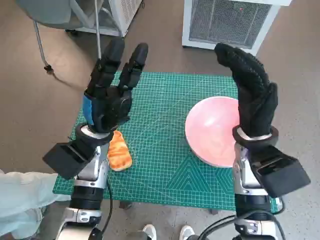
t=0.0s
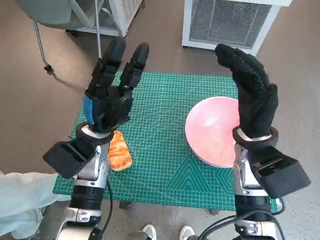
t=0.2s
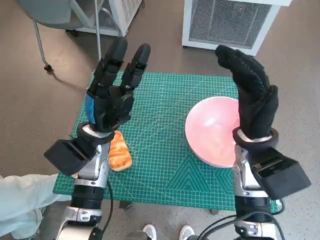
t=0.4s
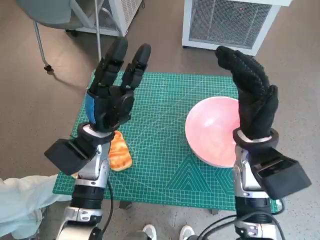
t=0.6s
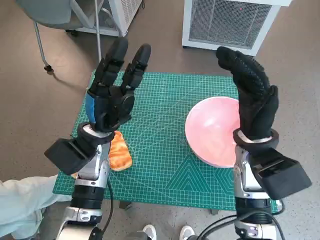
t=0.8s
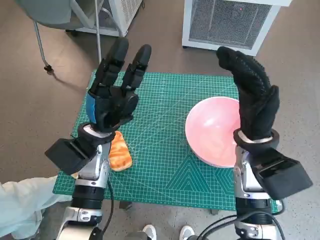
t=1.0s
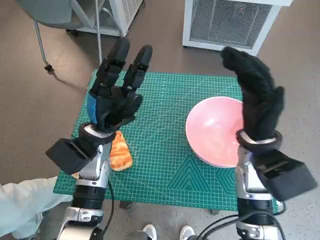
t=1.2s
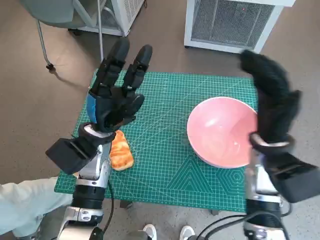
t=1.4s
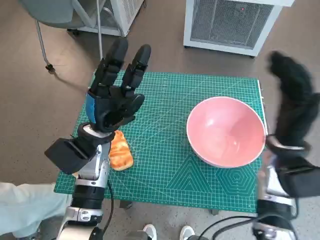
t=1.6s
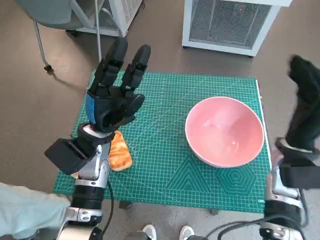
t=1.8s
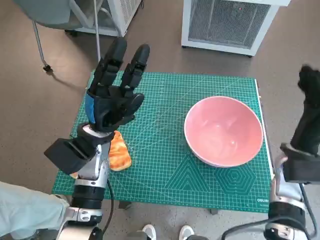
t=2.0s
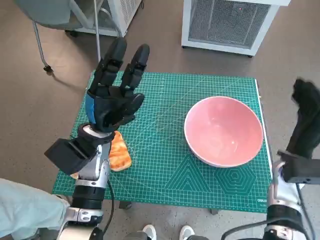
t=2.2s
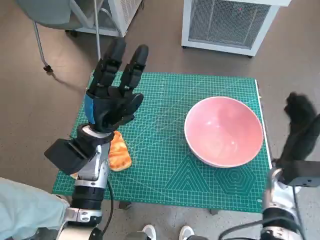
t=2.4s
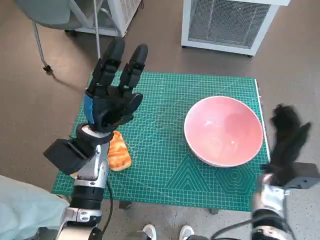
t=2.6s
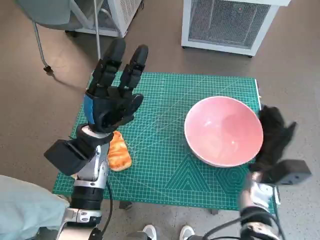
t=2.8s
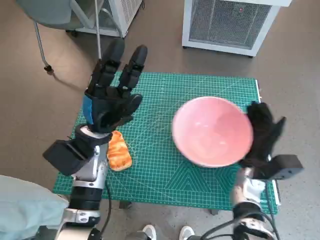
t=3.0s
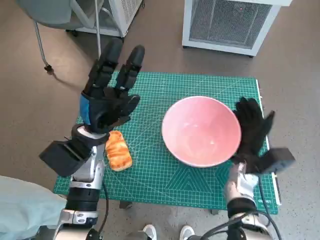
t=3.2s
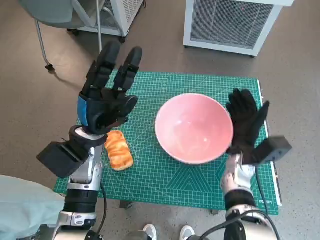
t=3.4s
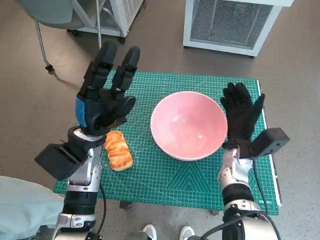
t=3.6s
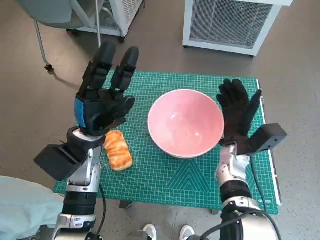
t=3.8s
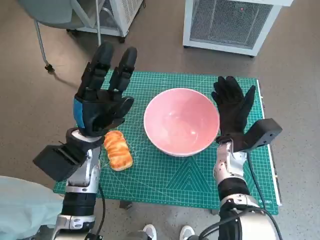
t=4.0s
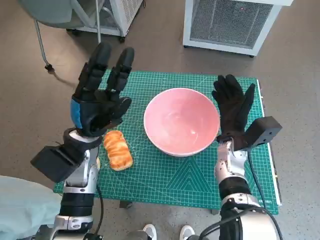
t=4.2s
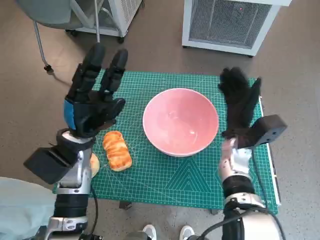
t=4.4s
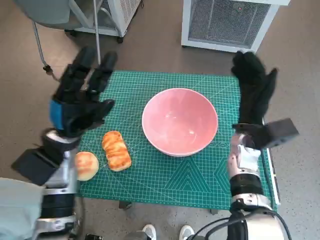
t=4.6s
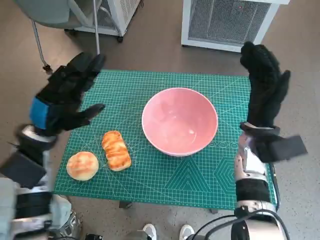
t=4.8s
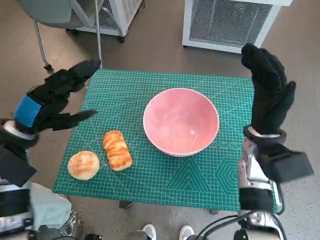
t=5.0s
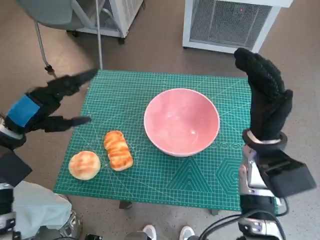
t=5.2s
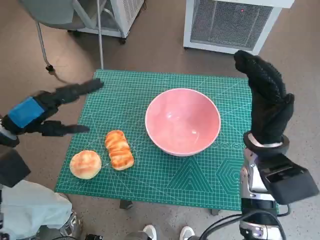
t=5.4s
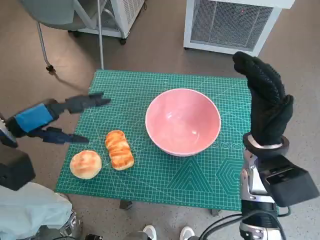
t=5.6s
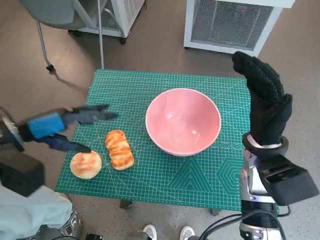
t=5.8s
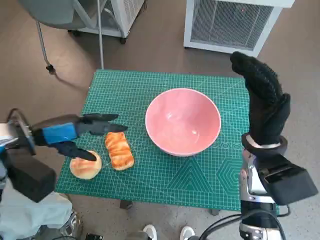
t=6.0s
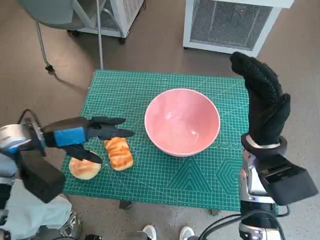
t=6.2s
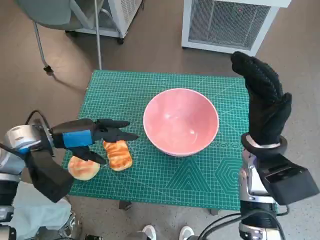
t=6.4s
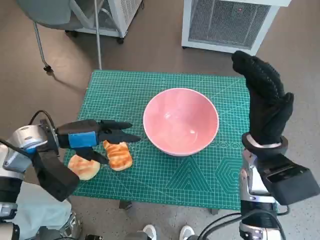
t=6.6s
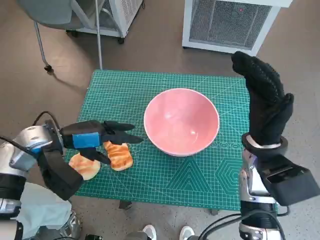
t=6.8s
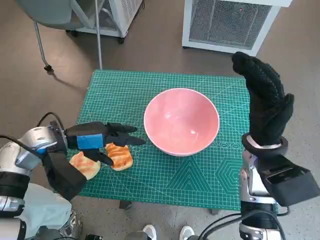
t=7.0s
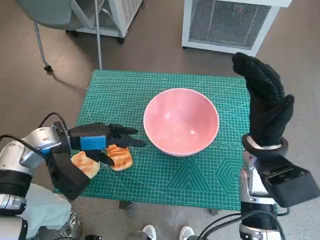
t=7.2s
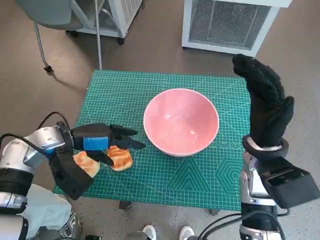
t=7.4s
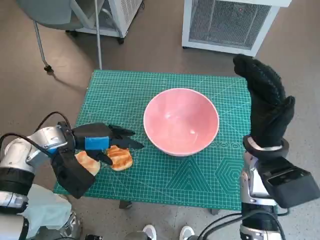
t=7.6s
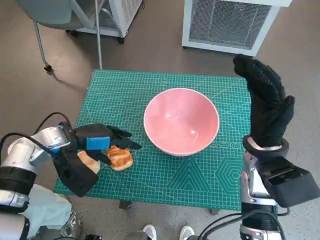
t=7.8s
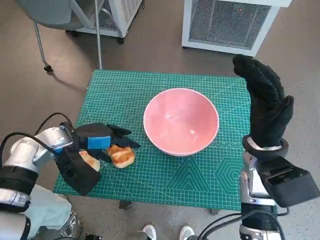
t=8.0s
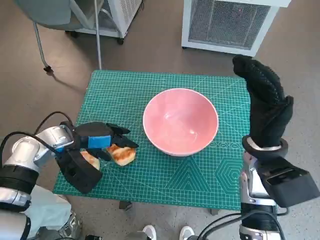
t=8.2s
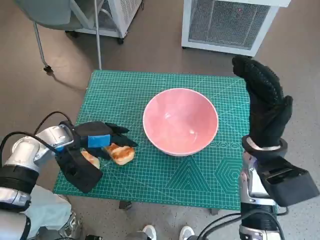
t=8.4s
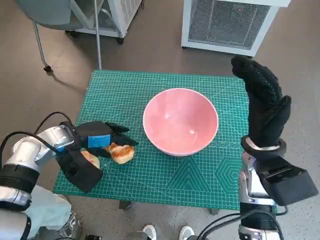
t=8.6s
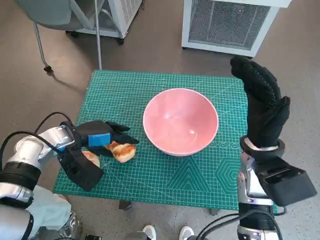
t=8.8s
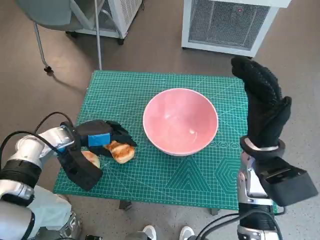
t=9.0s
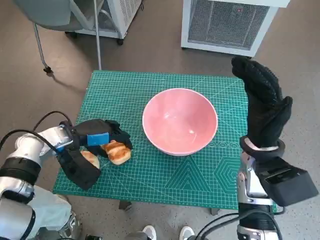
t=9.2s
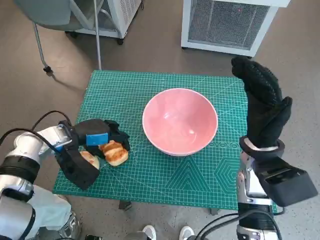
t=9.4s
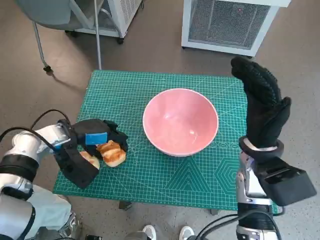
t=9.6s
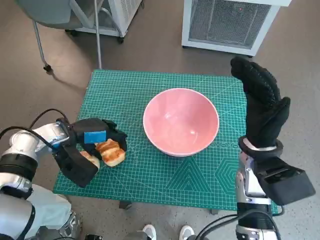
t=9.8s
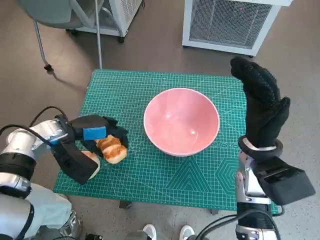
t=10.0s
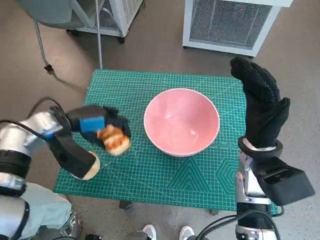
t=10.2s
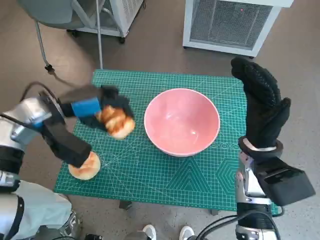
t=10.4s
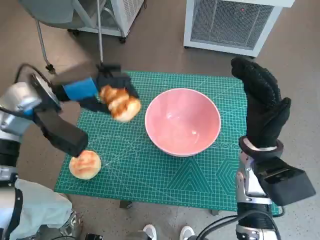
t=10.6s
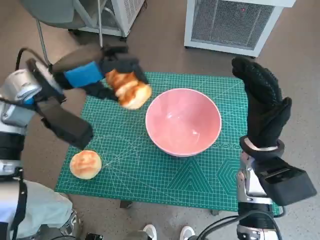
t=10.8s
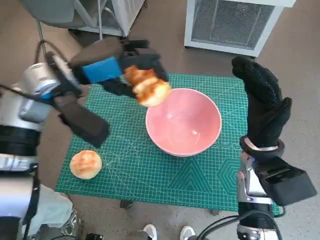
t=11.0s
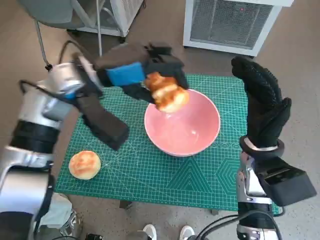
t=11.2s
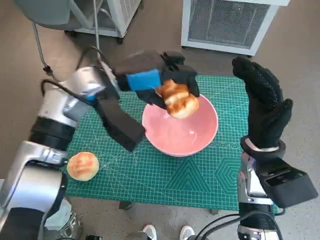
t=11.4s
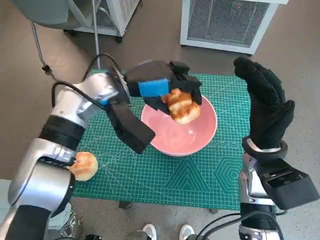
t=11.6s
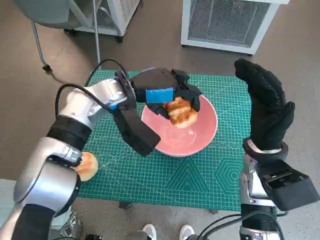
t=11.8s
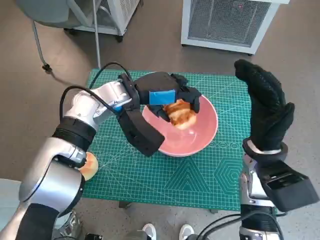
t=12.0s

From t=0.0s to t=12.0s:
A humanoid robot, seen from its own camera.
Task of the whole recording: Push the bowl to the center of the table and put the bread into the bowl.
Step, from t=0.0s to t=4.4s: Move the pink bowl to the center of table with right hand.
Step, from t=4.6s to t=9.2s: Grasp the long bread with left hand.
From t=1.6s to t=3.0s: The right hand goes about 10 cm downward.
From t=3.0s to t=4.4s: The right hand ends up about 10 cm from where it was.
From t=4.4s to t=6.0s: The right hand goes some 10 cm upward. Meanwhile the left hand shifts roughly 10 cm to the left and upward.
From t=6.0s to t=7.6s: The left hand travels downward by approximately 5 cm.
From t=7.6s to t=9.0s: The hands make only small movements.
From t=9.0s to t=10.4s: The left hand moves upward, approximately 5 cm.
From t=10.4s to t=12.0s: The left hand shifts roughly 15 cm to the right.

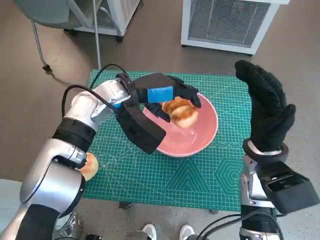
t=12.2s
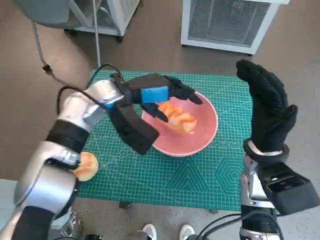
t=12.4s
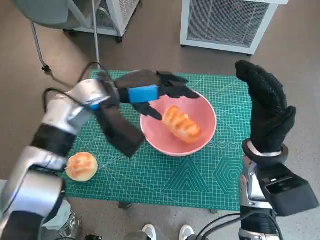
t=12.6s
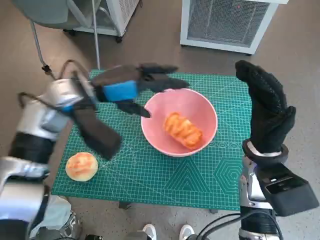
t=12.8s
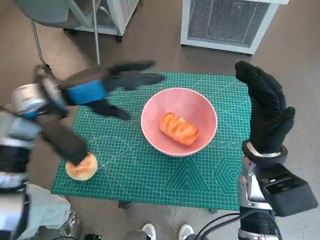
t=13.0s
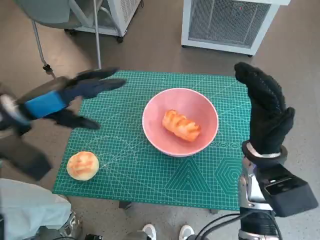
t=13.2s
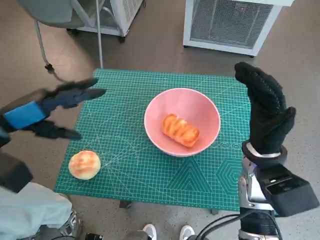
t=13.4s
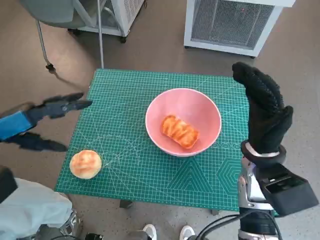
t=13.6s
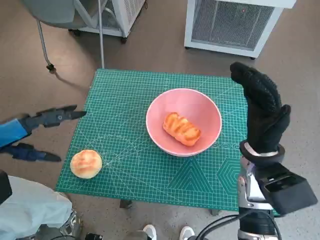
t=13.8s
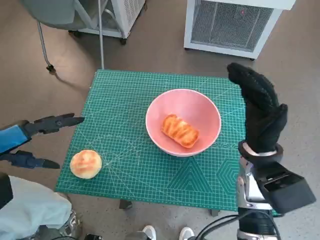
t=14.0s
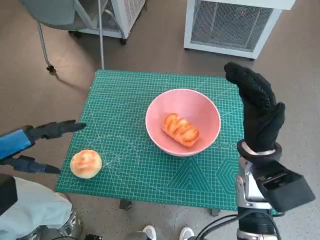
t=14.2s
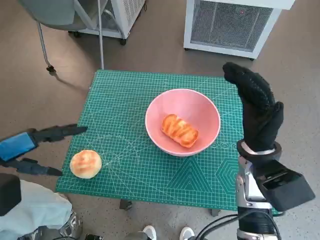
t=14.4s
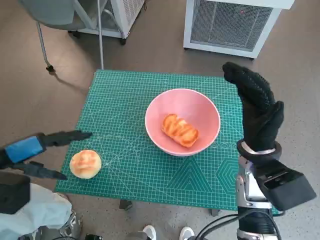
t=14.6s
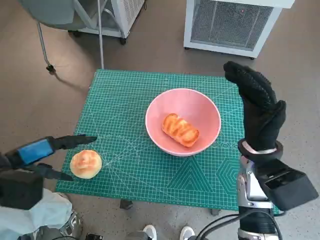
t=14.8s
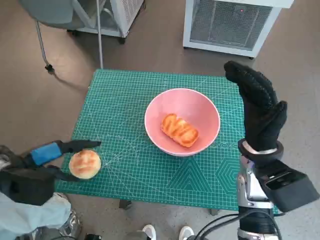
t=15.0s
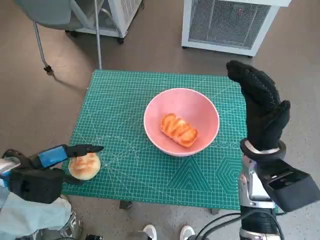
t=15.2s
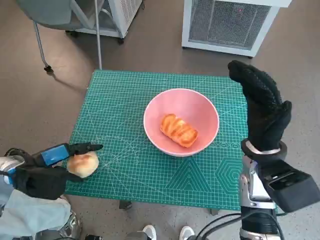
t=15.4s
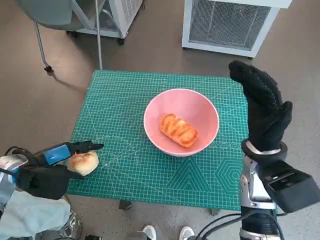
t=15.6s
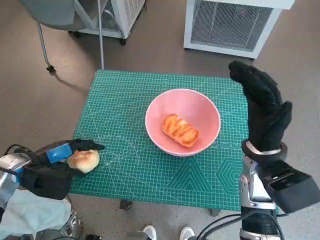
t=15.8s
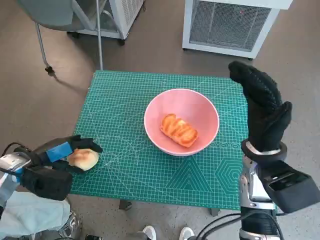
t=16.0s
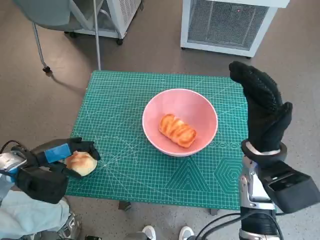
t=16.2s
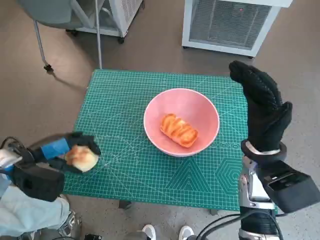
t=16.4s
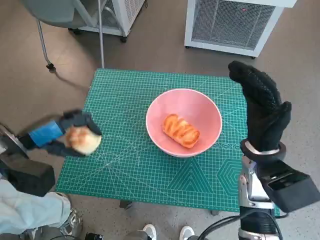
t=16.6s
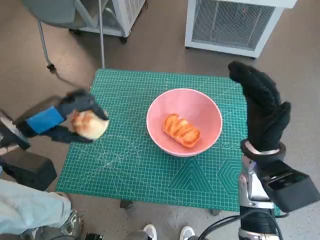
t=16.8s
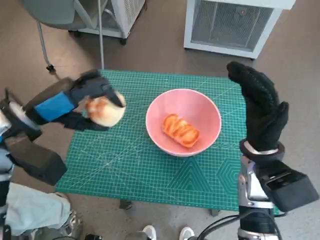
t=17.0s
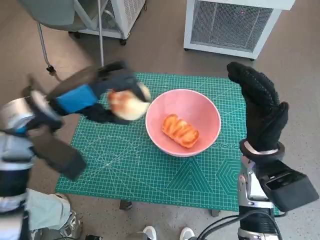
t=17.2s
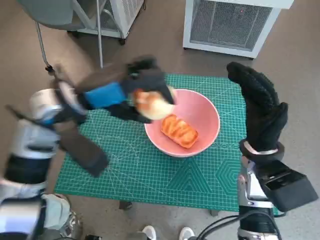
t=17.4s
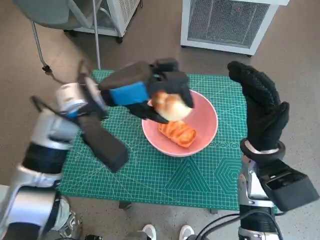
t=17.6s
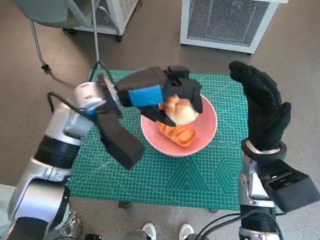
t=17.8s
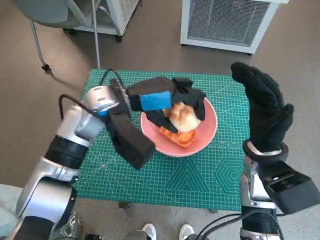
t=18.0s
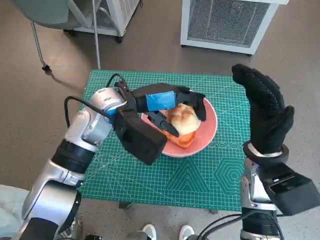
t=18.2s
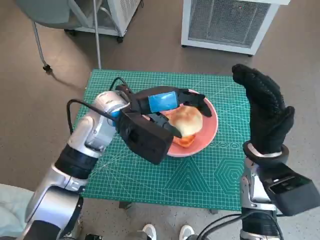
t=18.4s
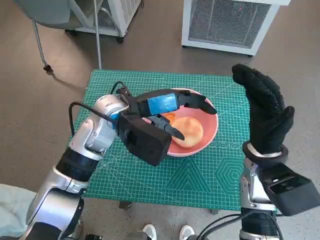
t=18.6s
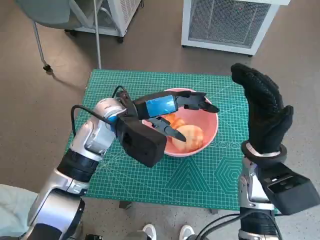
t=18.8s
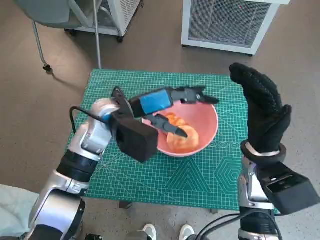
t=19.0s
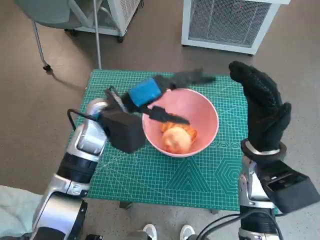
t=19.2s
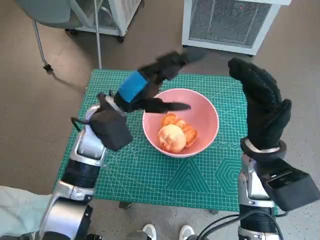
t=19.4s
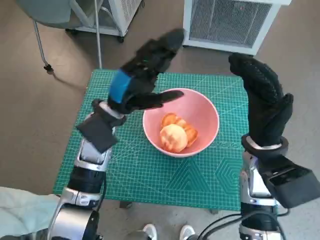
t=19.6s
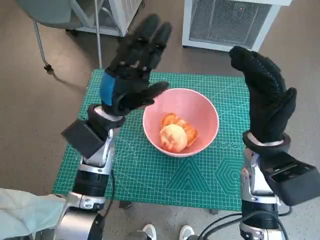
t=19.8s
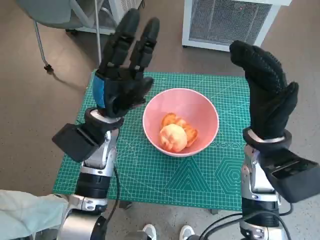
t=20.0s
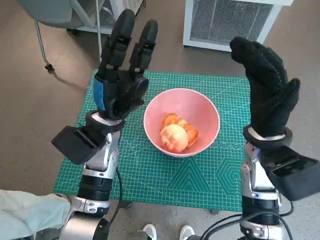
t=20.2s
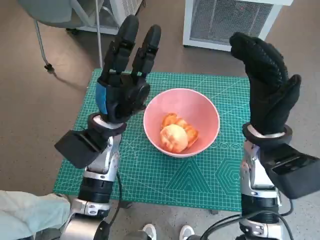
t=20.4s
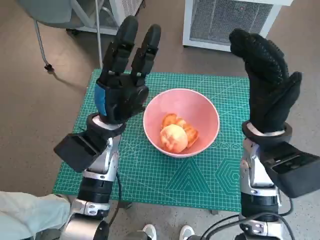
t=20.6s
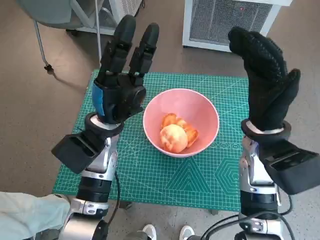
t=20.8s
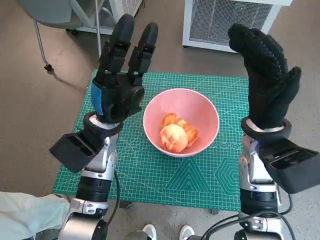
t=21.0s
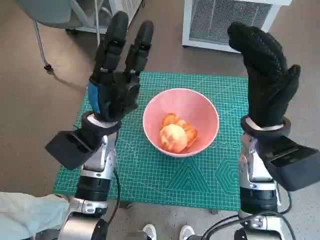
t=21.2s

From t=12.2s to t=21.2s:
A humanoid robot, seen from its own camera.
Task of the whole recording: Push the bowl to the center of the table and put the bread into the bowl.
Step, from t=12.8s to t=16.0s: Grasp the round bread with left hand.
Step, from t=16.2s to t=19.2s: Place the round bread in pink bowl with left hand.
From t=12.2s to t=13.8s: The left hand travels to the left and backward by approximately 25 cm.
From t=13.8s to t=15.2s: The left hand goes approximately 10 cm downward.
From t=16.6s to t=18.2s: The left hand shifts roughly 20 cm to the right and forward.
From t=18.2s to t=19.8s: The left hand ends up roughly 5 cm from where it was.

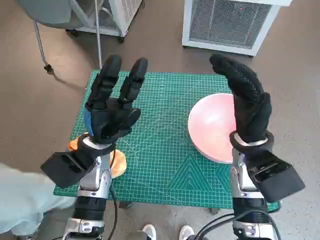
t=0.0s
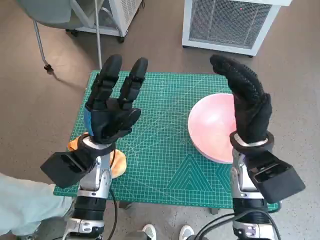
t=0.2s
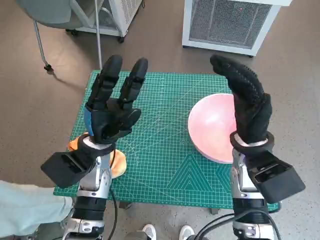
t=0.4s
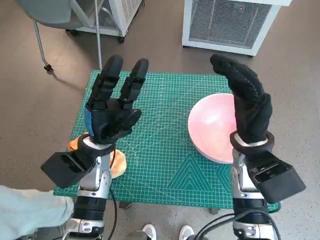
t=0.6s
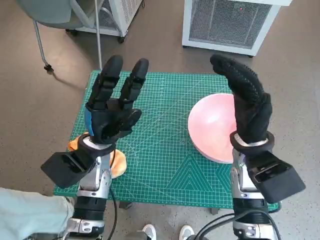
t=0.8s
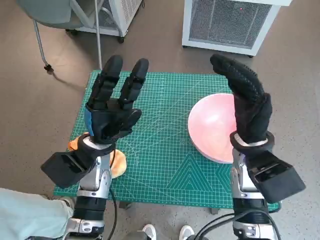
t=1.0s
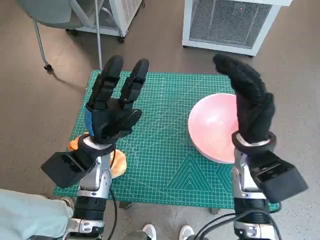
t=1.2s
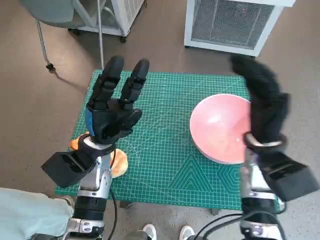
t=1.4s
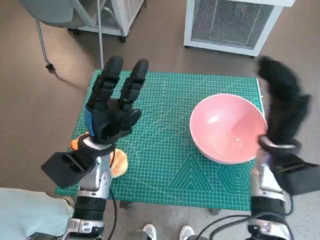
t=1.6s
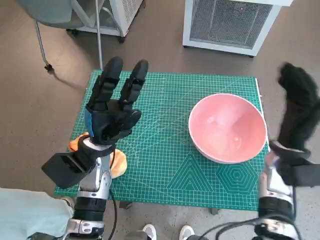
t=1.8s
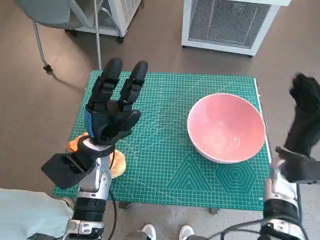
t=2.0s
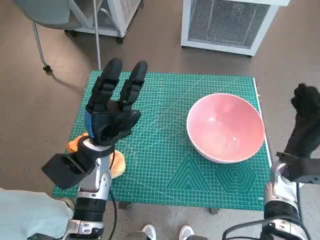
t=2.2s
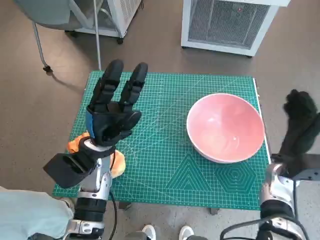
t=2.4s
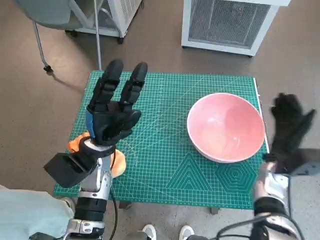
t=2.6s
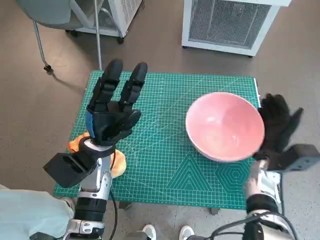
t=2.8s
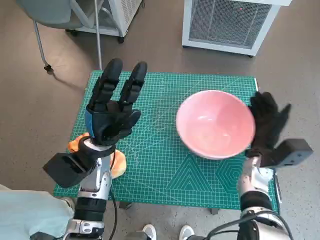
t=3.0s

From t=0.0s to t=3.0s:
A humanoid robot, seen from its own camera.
Task of the whole recording: Push the bowl to the center of the table and put the bread into the bowl.
From t=1.6s to t=3.0s: The right hand shifts about 10 cm downward.
